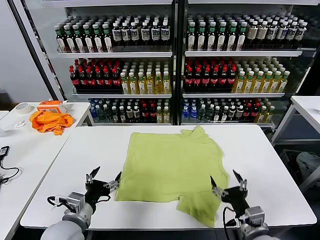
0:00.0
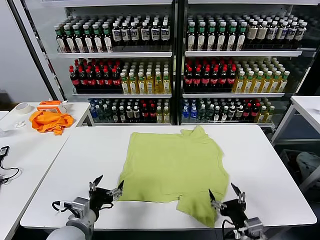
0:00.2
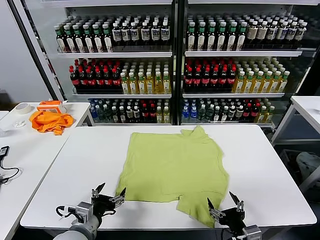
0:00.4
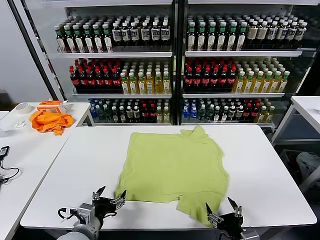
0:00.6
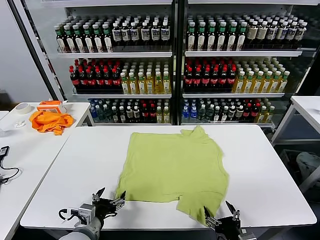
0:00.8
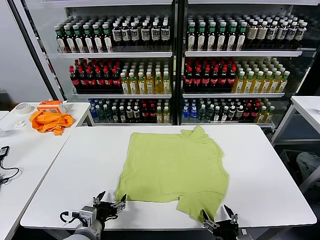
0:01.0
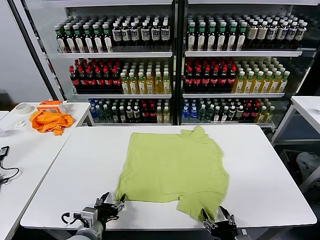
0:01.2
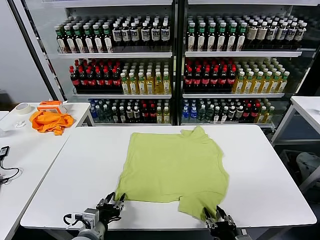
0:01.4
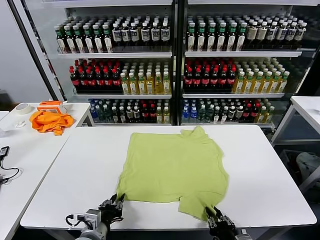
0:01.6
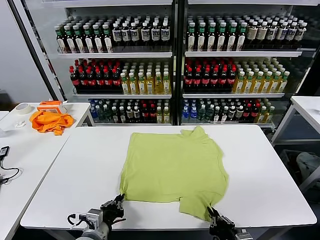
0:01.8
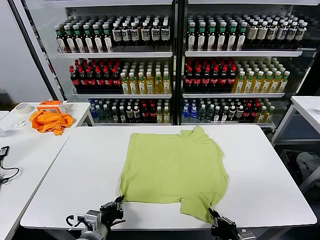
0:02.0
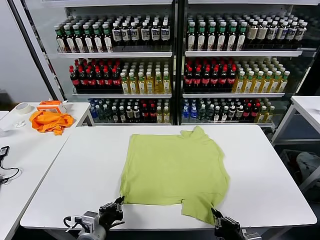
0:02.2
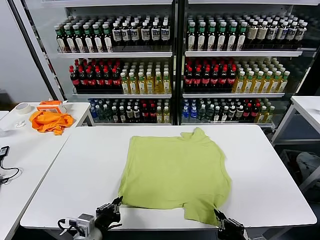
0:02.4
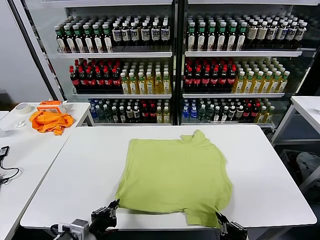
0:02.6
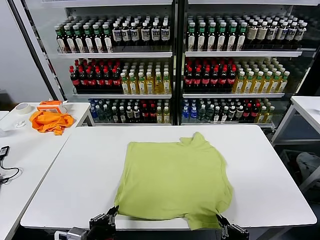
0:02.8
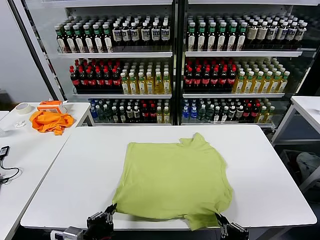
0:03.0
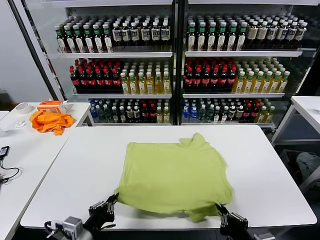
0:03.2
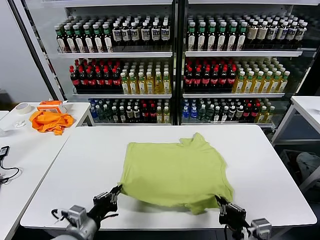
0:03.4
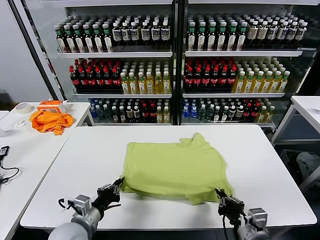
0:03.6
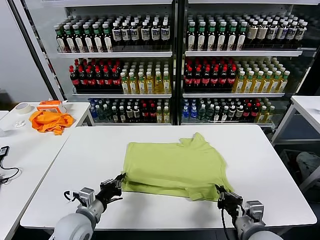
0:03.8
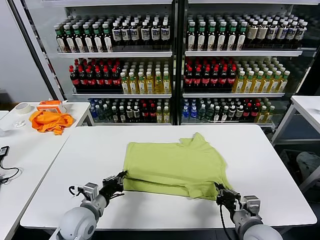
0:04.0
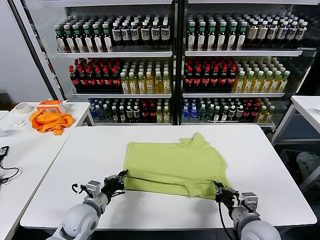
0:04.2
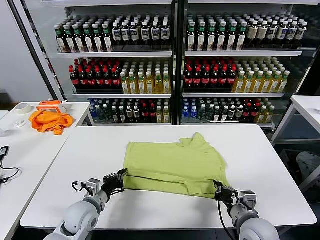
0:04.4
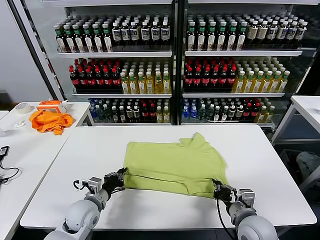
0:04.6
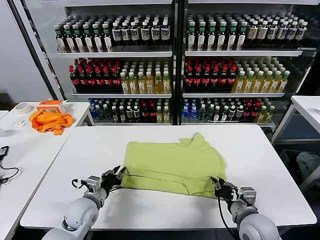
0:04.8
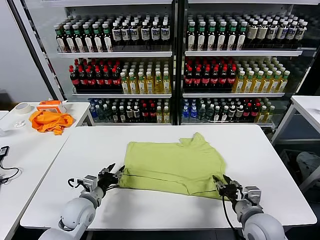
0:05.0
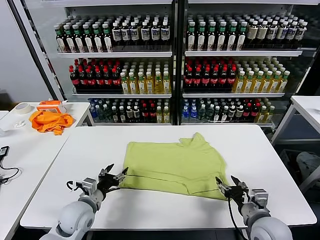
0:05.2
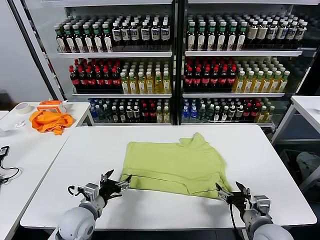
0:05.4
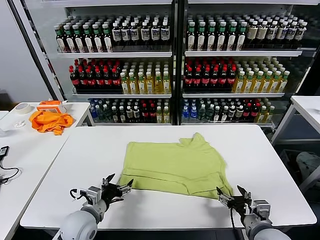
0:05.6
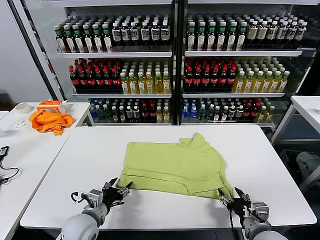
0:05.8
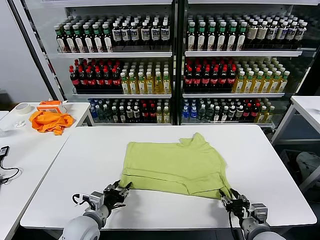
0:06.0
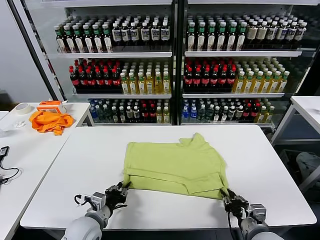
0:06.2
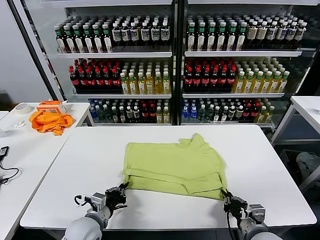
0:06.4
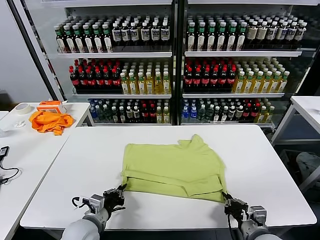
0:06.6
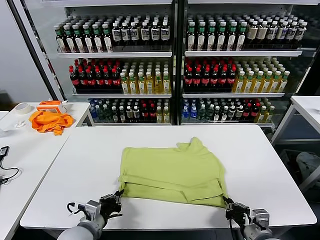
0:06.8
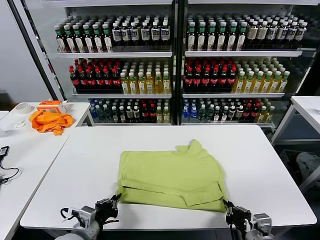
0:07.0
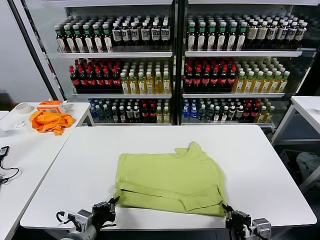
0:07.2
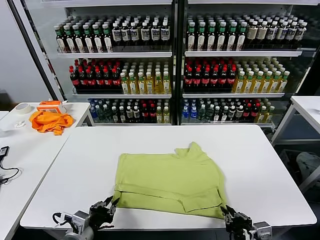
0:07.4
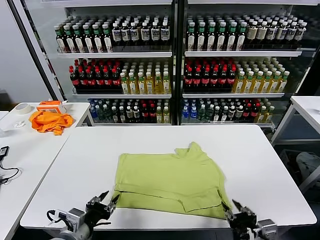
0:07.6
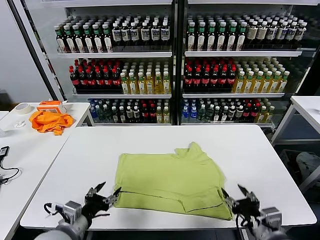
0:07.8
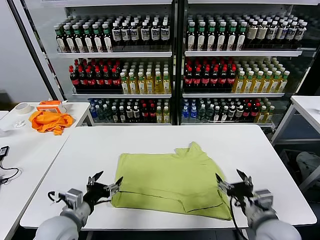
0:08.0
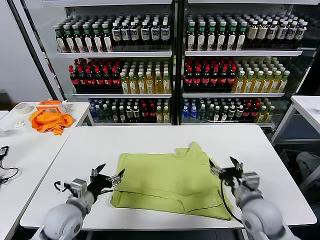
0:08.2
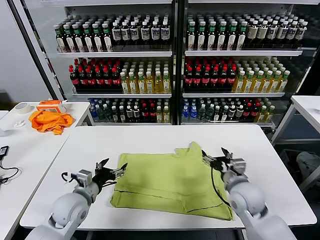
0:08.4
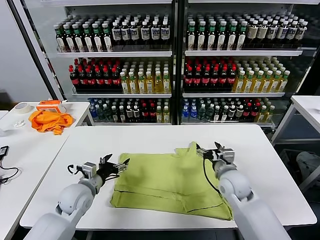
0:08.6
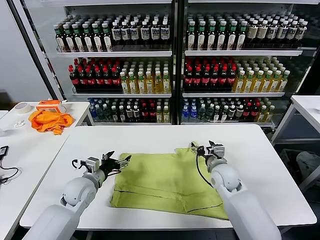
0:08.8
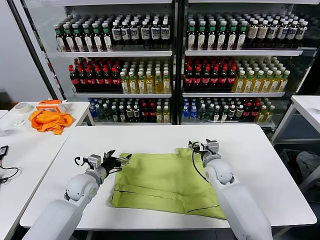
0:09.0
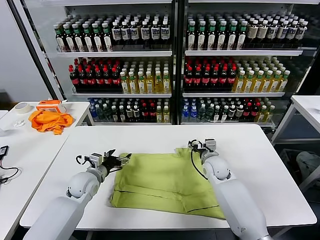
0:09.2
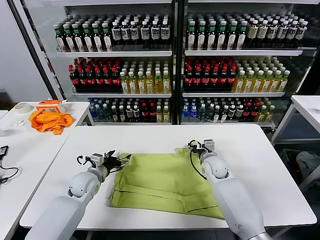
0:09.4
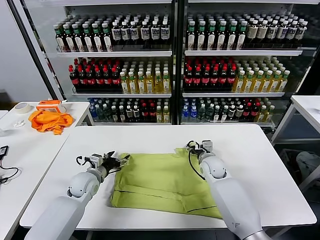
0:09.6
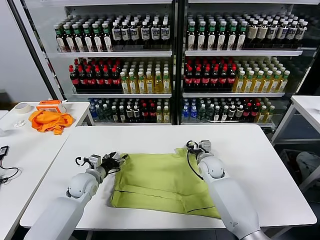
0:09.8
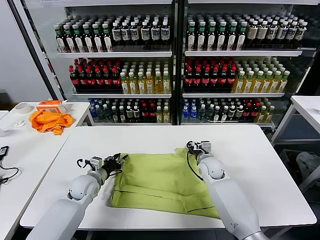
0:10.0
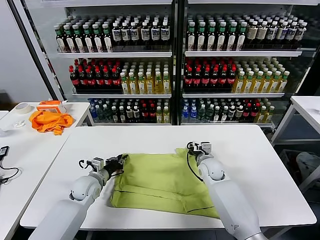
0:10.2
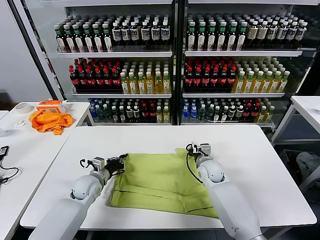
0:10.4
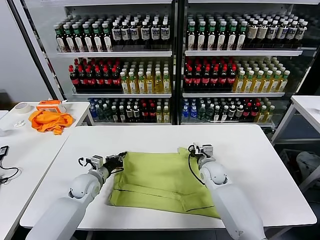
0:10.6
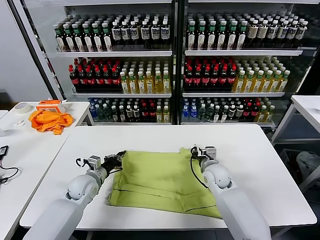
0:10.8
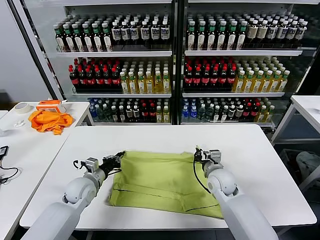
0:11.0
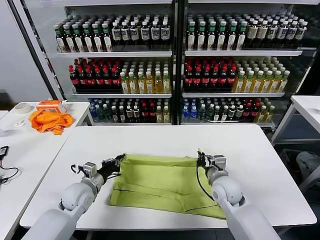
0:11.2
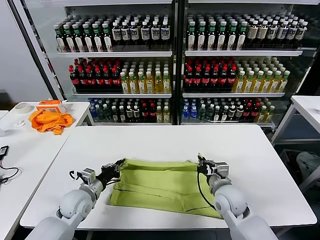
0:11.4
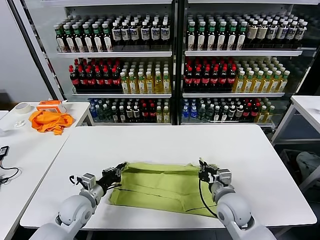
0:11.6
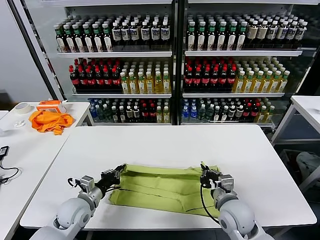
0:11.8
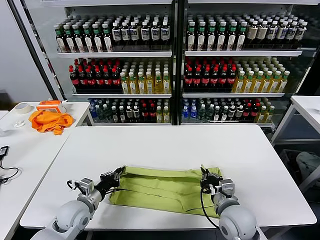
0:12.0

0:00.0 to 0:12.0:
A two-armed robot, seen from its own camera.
Task of the whole recording: fold and organize the clothes.
Step, 0:00.0 to 0:01.8: use both grippers simultaneously to clamp the lower edge of the clothing fabric.
Step, 0:02.0 to 0:04.8: use both grippers to drag the lower edge of the fabric forward and fold it over the upper edge.
Step, 0:05.0 to 0:07.4: Drag the clothes downward with both gripper.
Step, 0:07.6 to 0:10.2: use both grippers simultaneously to clamp the upper edge of the clothing fabric.
0:01.6 to 0:03.0: Both grippers travel together upward, about 5 cm.
0:03.0 to 0:04.4: The right gripper goes approximately 15 cm forward; the left gripper heads forward and downward, covering roughly 15 cm.
0:04.4 to 0:06.0: The right gripper changes place by roughly 5 cm, and opens. The left gripper goes about 5 cm backward, and opens, then closes again.
0:06.0 to 0:07.6: The two grippers go approximately 10 cm upward and backward. The right gripper closes, then reopens. Meanwhile the left gripper closes, then opens again.
0:07.6 to 0:09.0: Both grippers travel together forward, approximately 25 cm. The right gripper opens its fingers.
0:09.0 to 0:10.4: The right gripper closes its fingers; the left gripper closes.
0:10.4 to 0:12.0: The right gripper shifts about 20 cm backward. The left gripper travels backward by about 10 cm.

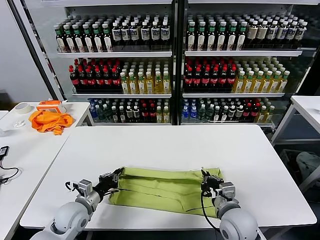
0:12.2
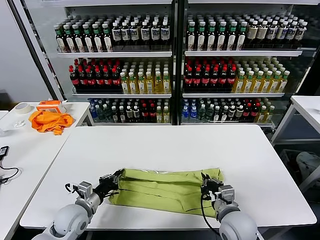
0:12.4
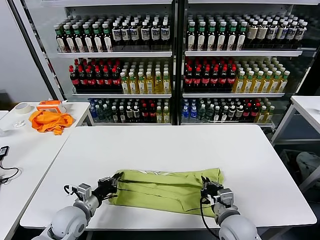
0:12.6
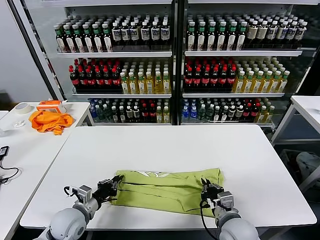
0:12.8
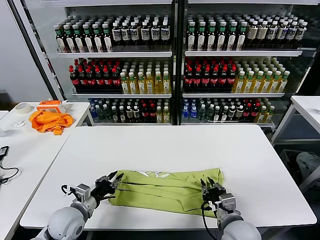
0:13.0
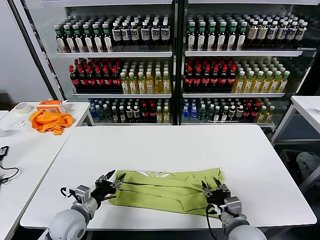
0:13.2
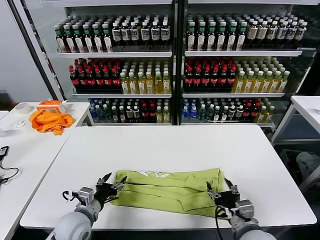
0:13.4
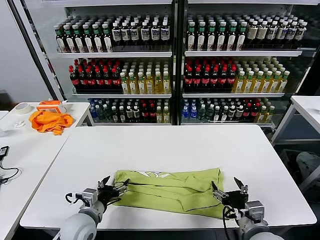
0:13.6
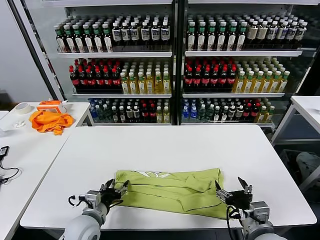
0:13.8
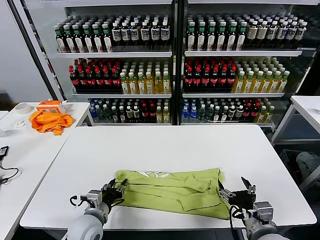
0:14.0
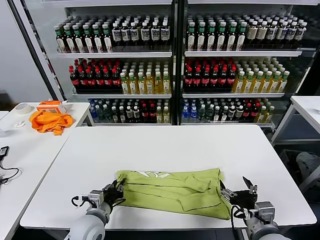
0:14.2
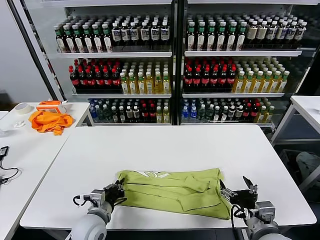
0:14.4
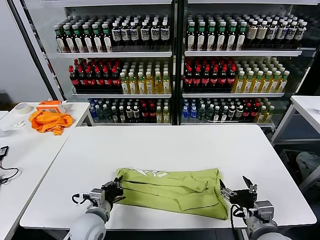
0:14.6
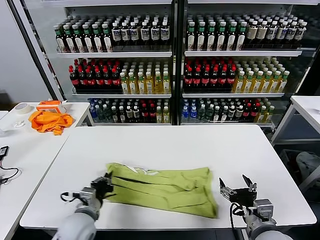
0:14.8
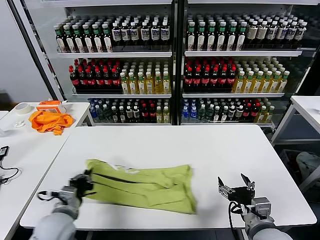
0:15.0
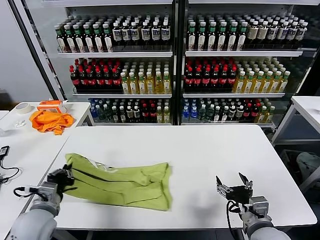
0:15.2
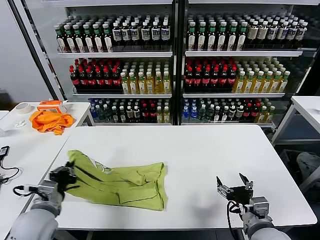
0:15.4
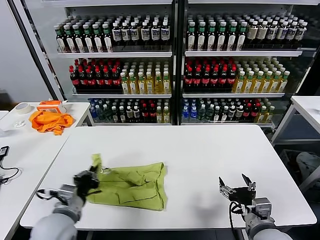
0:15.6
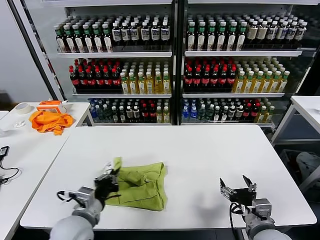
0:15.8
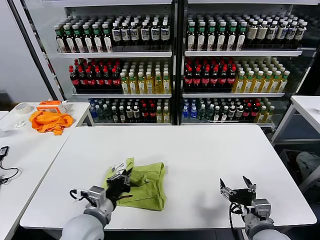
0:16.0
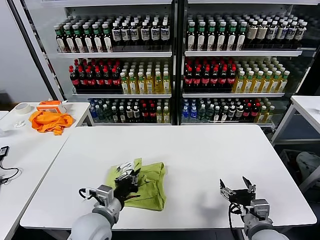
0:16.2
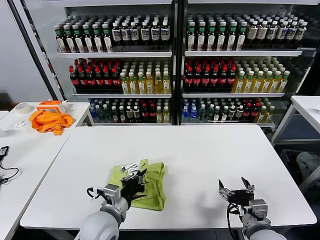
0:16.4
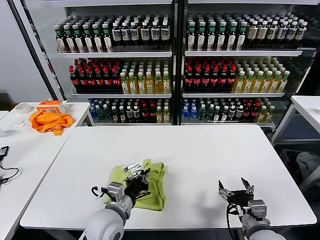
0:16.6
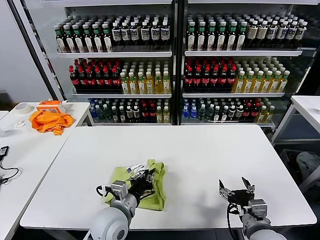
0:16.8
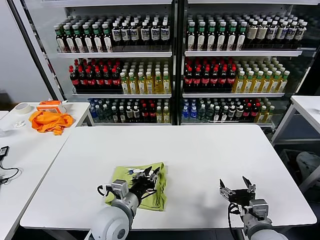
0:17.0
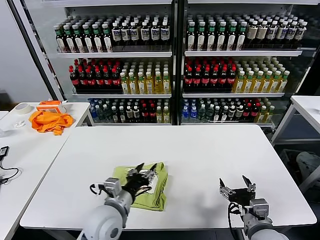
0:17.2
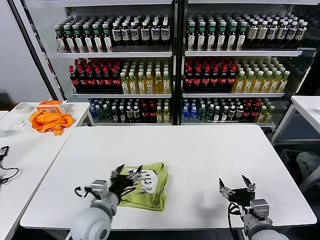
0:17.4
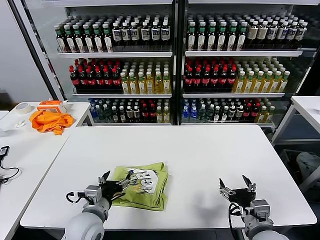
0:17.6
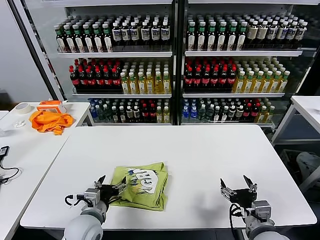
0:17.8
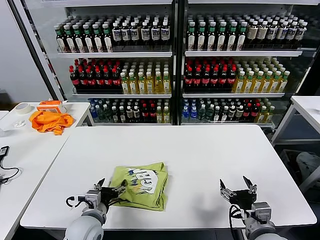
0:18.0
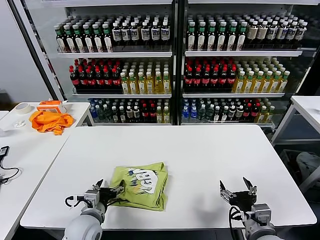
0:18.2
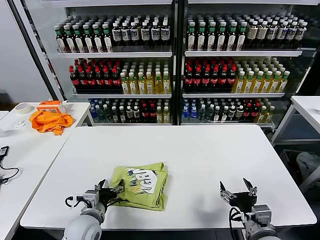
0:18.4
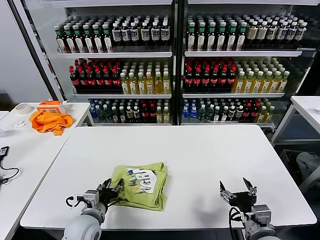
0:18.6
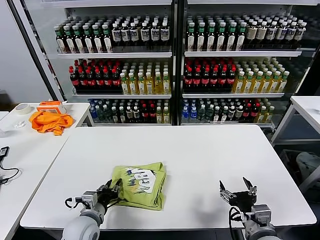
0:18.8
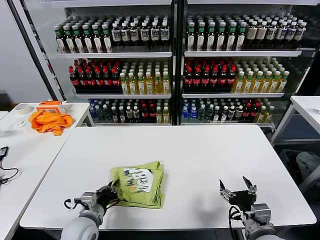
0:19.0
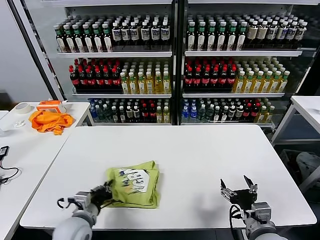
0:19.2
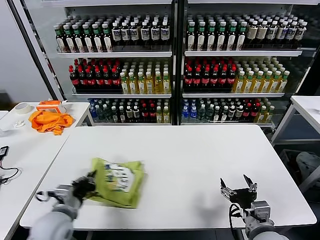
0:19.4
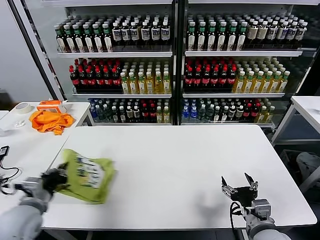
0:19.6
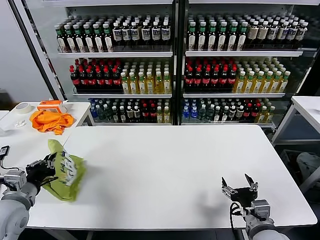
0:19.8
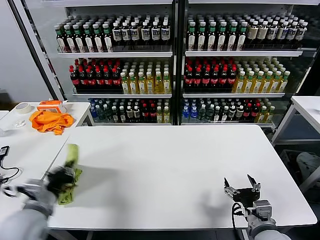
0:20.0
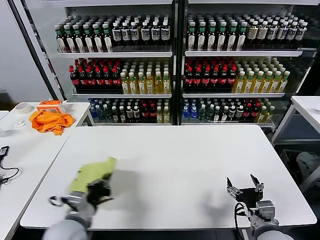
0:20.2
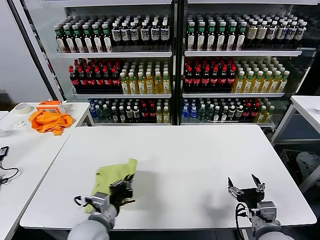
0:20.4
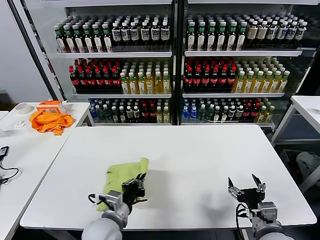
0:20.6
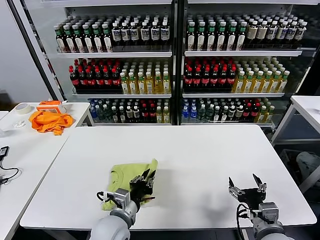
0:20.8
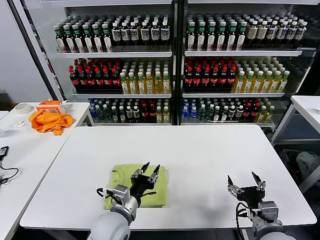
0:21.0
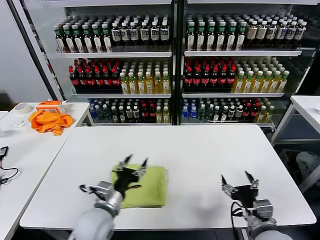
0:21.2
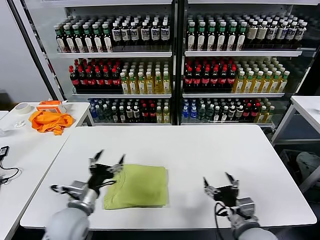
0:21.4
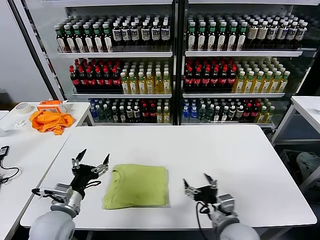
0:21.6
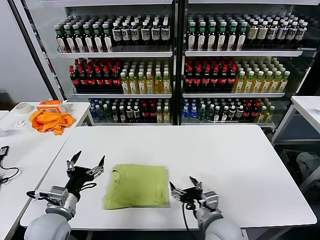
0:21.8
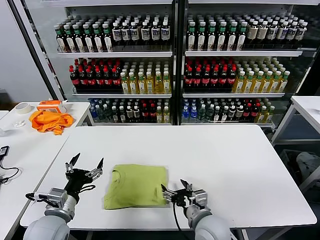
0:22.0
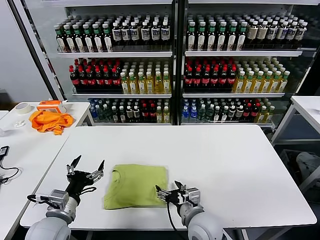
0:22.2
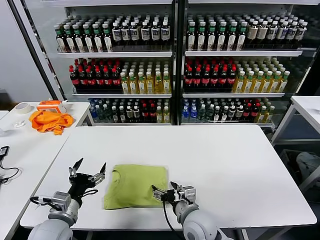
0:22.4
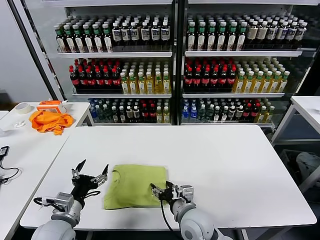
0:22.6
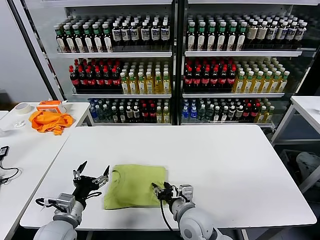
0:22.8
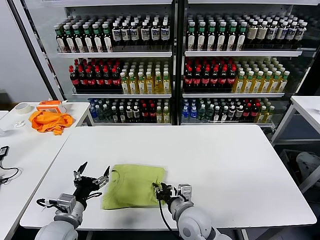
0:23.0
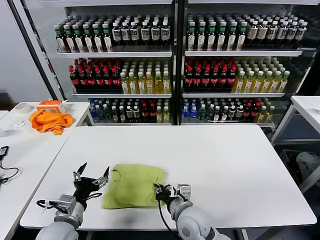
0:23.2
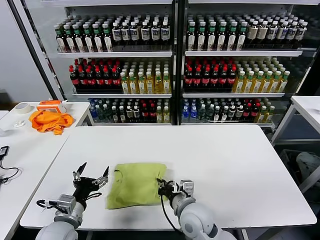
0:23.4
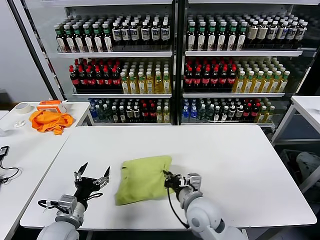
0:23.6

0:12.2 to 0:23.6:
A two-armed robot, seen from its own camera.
Task of the whole recording: fold and organize the clothes.
Step, 0:13.4 to 0:14.4: use the left gripper to clamp the left edge of the fabric.
Step, 0:14.6 to 0:17.0: use the left gripper to drag the left edge of the fabric to the left and folds it over the right edge.
Step, 0:17.2 to 0:20.8: Flip the folded clothes over with left gripper.
0:12.2 to 0:13.6: The left gripper changes place by roughly 5 cm, and opens its fingers; the right gripper shifts some 5 cm backward, and opens its fingers.
0:13.6 to 0:15.0: The left gripper travels to the left by about 5 cm, and closes its fingers.
0:15.0 to 0:16.4: The left gripper moves to the right, roughly 15 cm.
0:16.4 to 0:17.8: The left gripper moves to the left, some 5 cm, and opens its fingers.
0:17.8 to 0:19.4: The left gripper travels to the left by some 10 cm, and closes.
0:19.4 to 0:20.8: The left gripper goes some 15 cm to the right.
0:20.8 to 0:22.2: The right gripper shifts some 20 cm to the left and forward; the left gripper shifts some 15 cm to the left, and opens.
0:22.2 to 0:23.6: The right gripper closes up.
